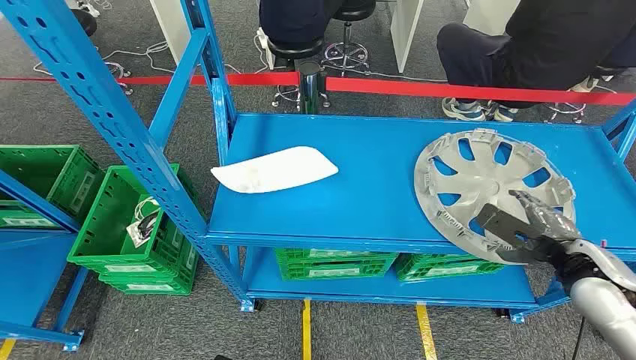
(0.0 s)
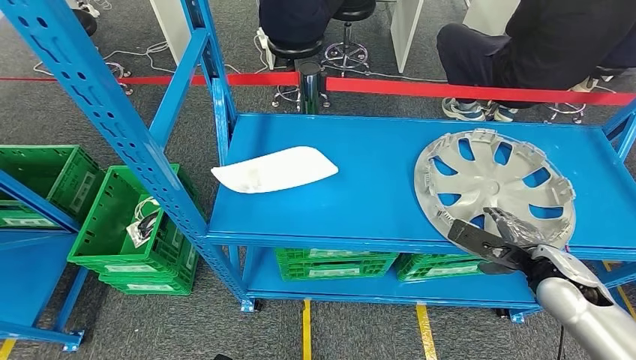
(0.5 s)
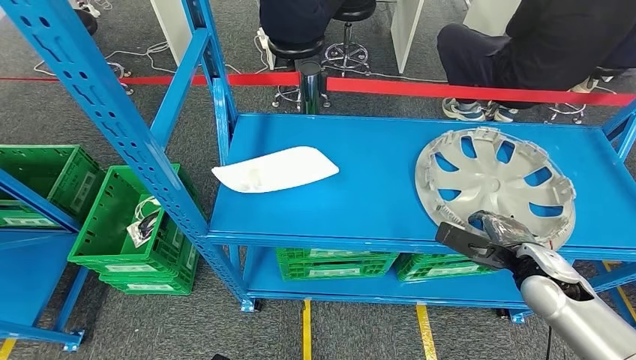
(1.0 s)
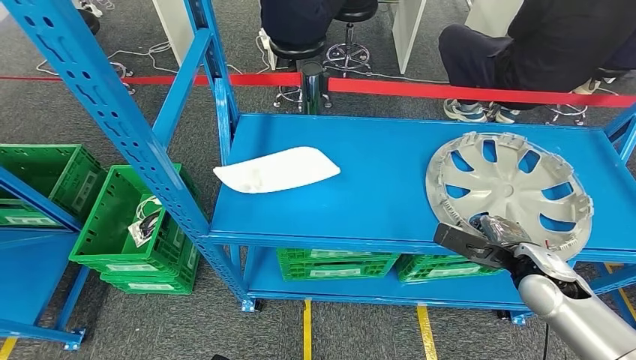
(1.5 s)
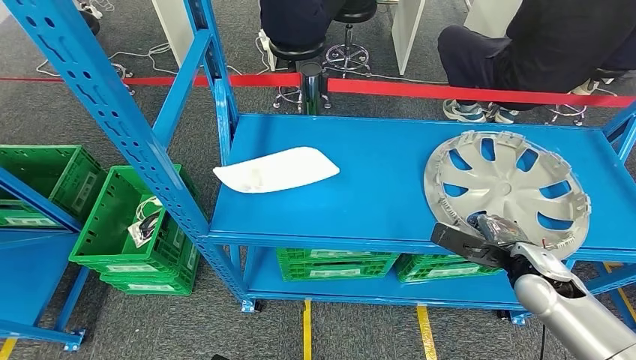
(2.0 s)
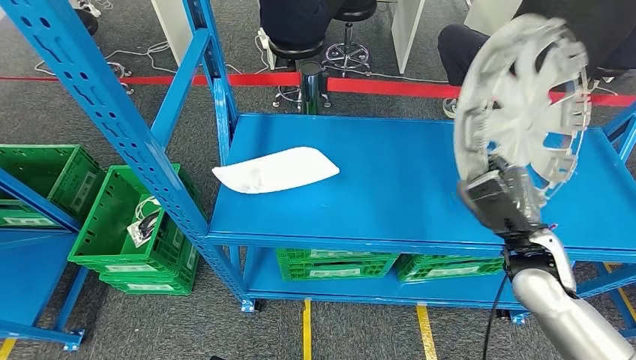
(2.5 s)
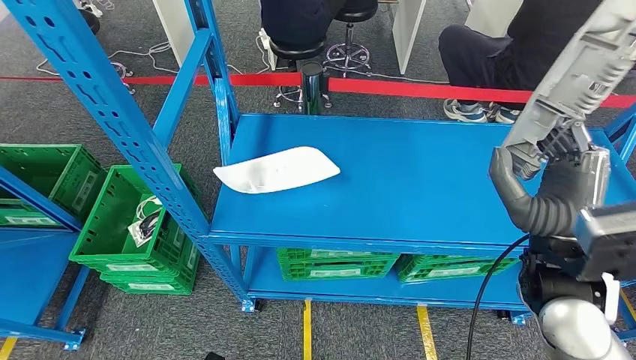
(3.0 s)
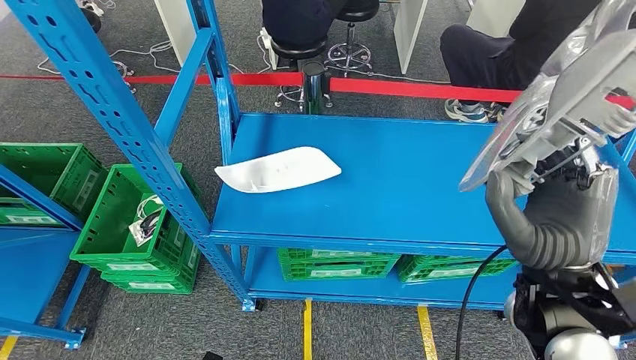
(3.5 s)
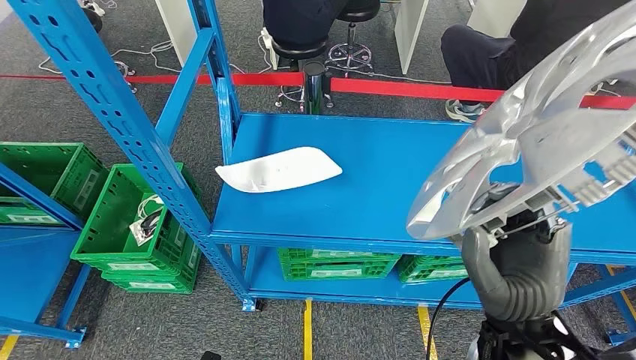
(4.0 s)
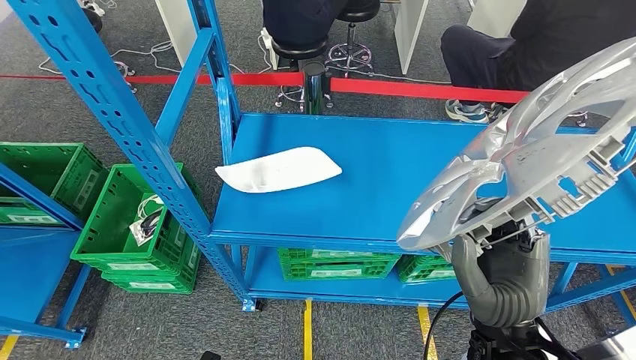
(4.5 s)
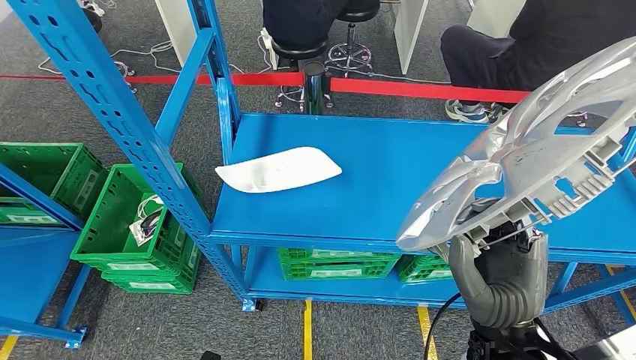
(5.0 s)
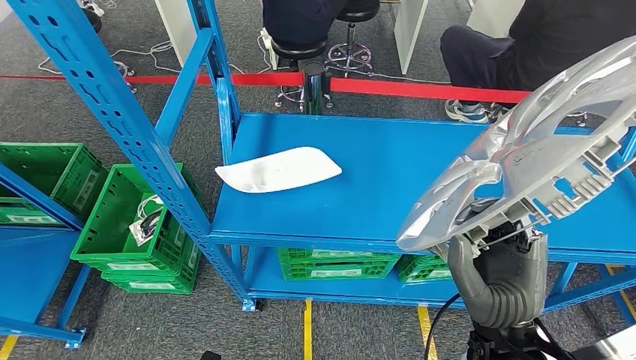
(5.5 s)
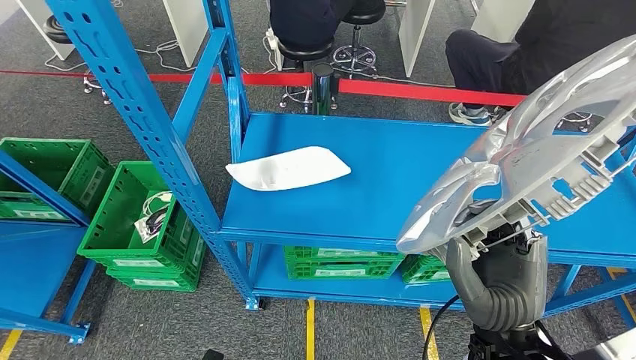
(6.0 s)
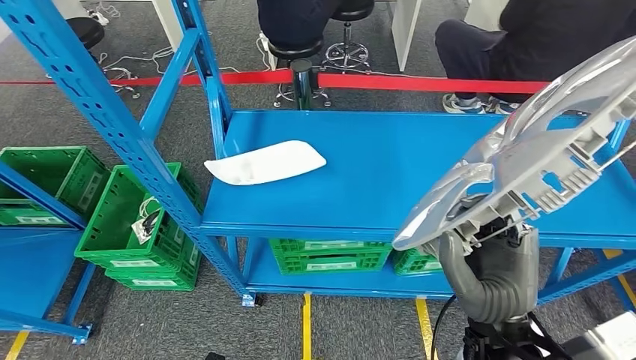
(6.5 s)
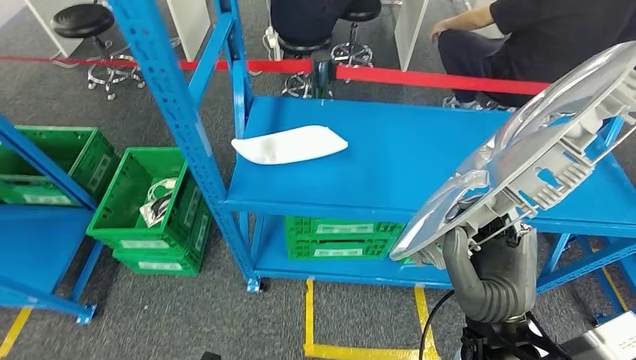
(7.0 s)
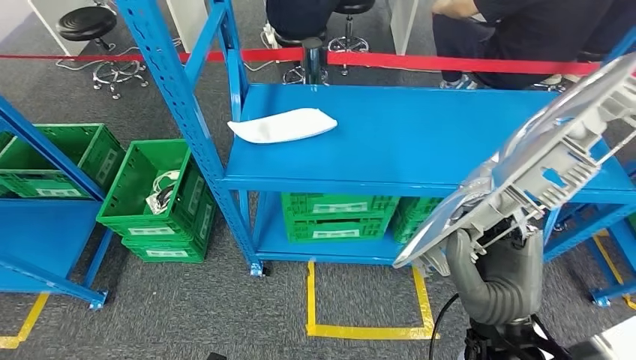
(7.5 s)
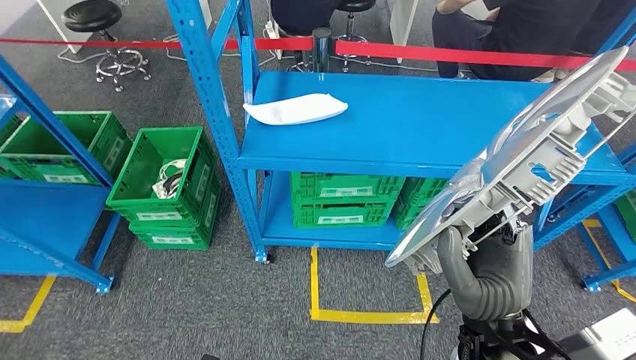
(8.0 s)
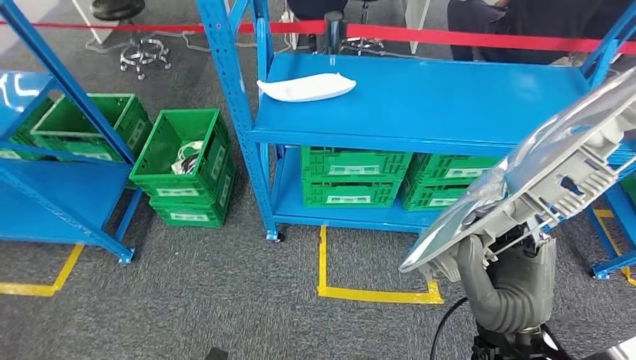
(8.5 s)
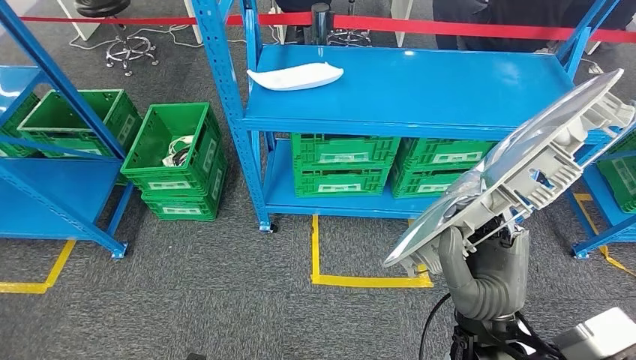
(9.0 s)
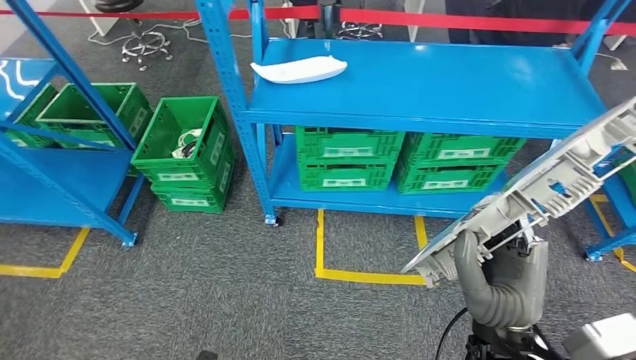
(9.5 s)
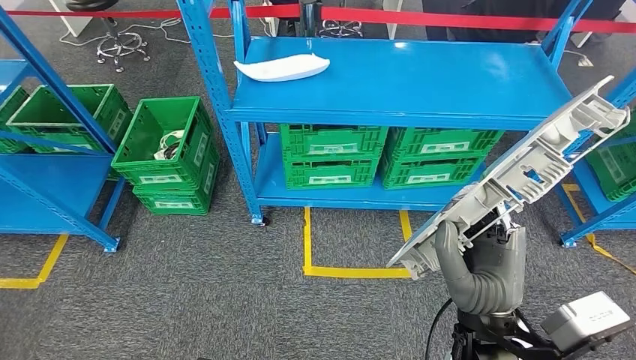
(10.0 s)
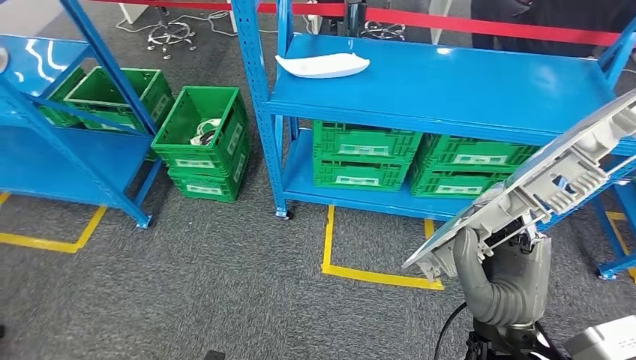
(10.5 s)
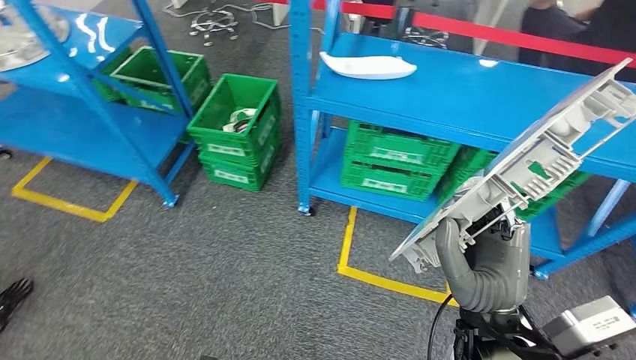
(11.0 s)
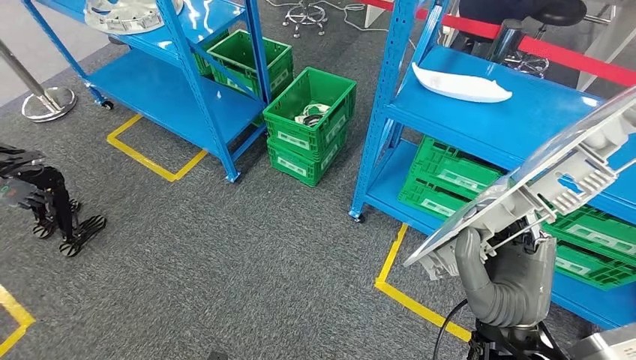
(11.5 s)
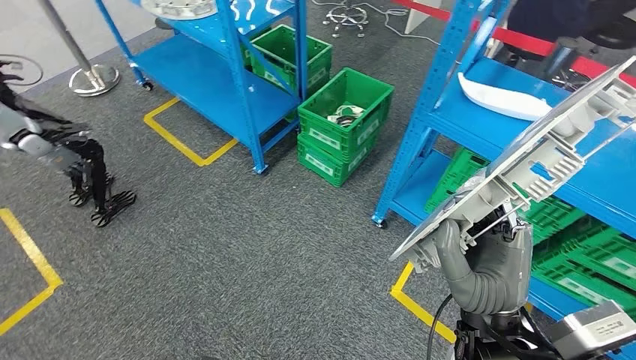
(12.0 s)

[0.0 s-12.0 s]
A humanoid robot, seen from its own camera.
Step, 0.0 to 4.0 s: Pick up the small component from the shelf.

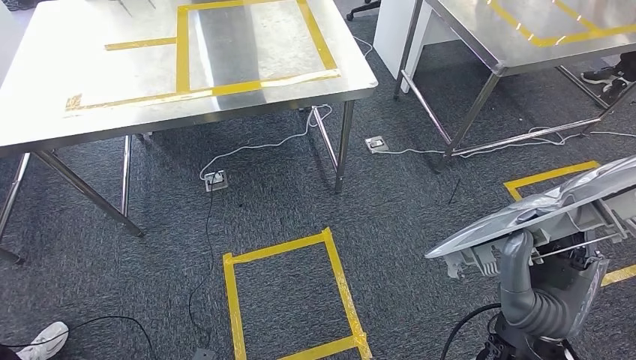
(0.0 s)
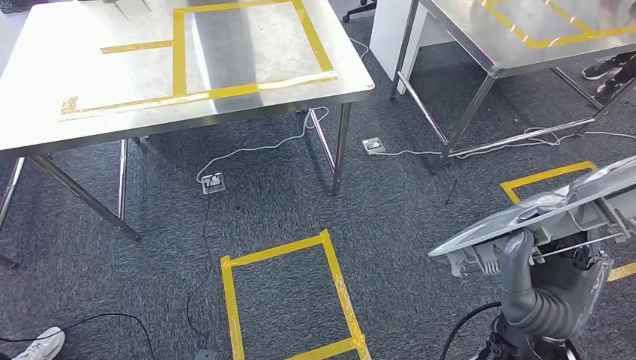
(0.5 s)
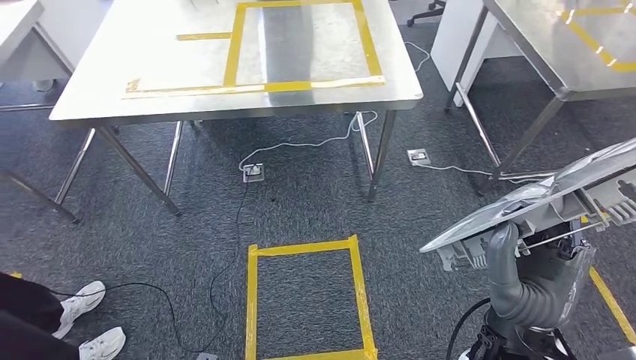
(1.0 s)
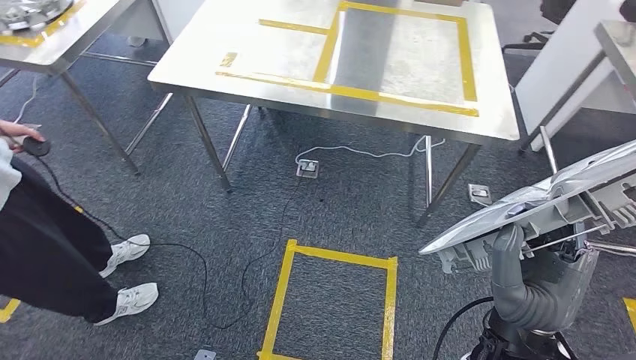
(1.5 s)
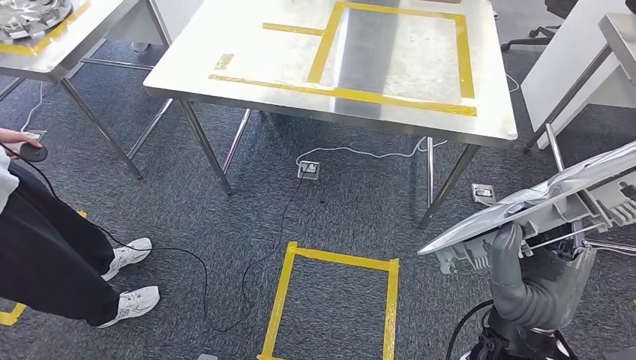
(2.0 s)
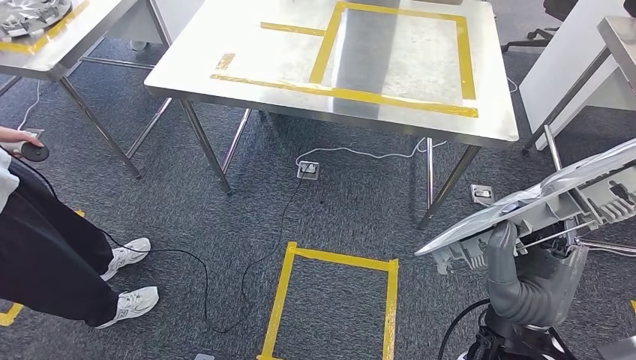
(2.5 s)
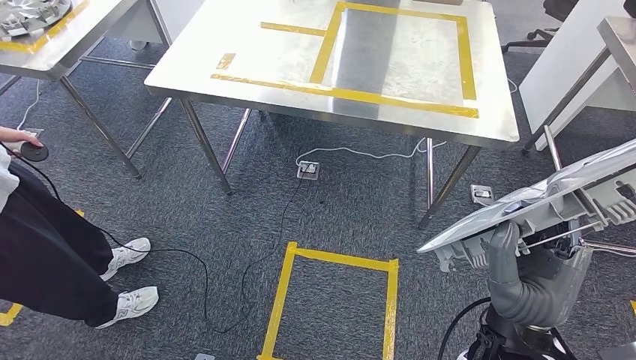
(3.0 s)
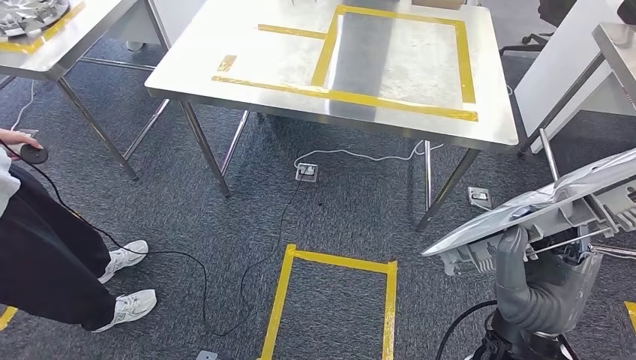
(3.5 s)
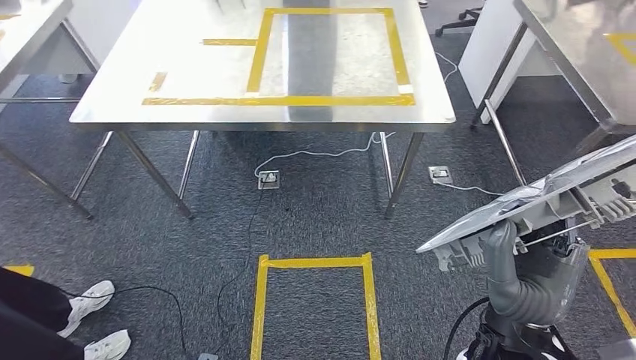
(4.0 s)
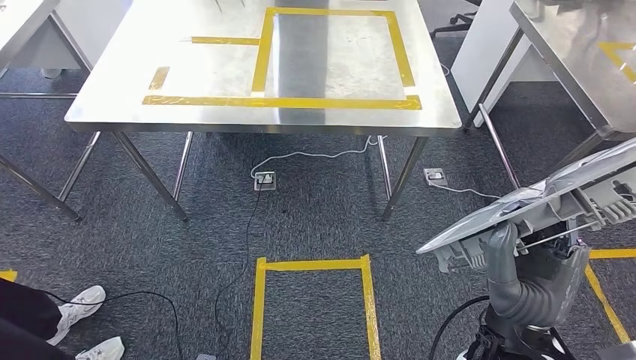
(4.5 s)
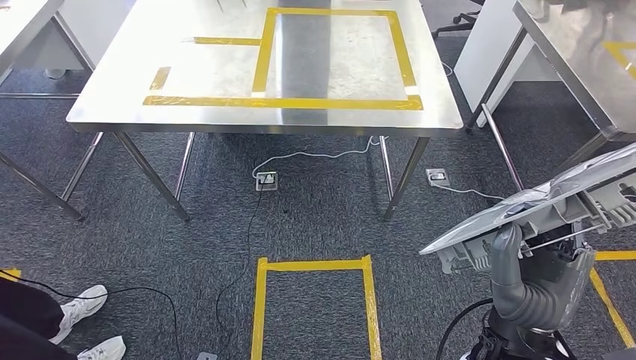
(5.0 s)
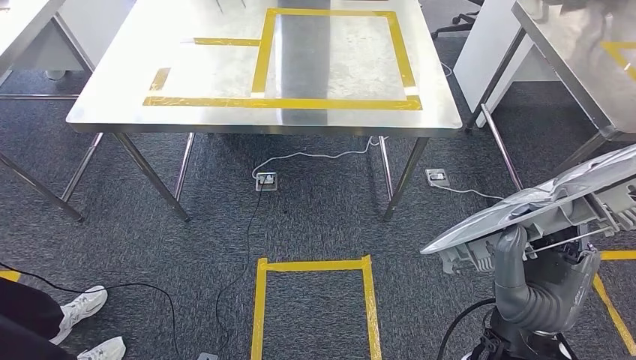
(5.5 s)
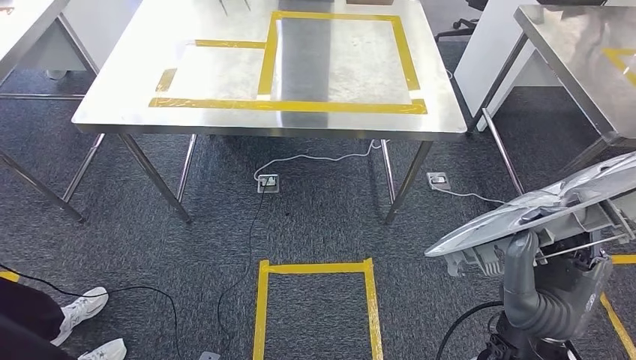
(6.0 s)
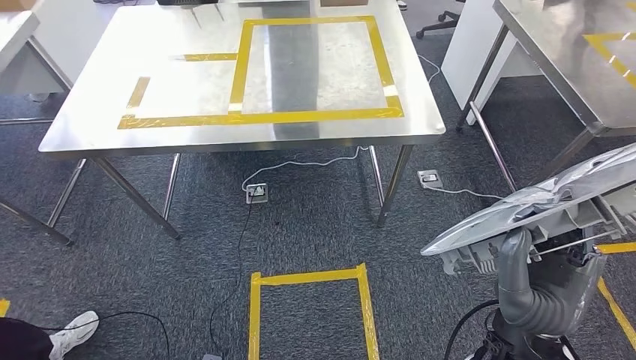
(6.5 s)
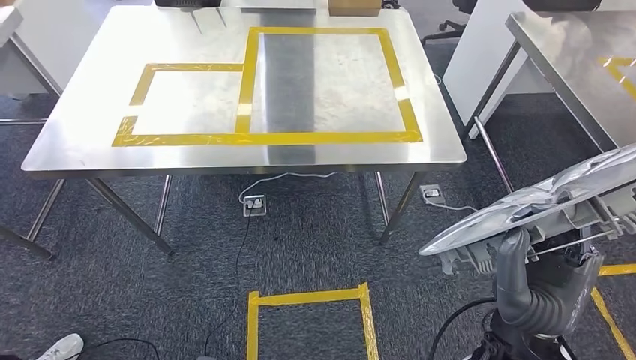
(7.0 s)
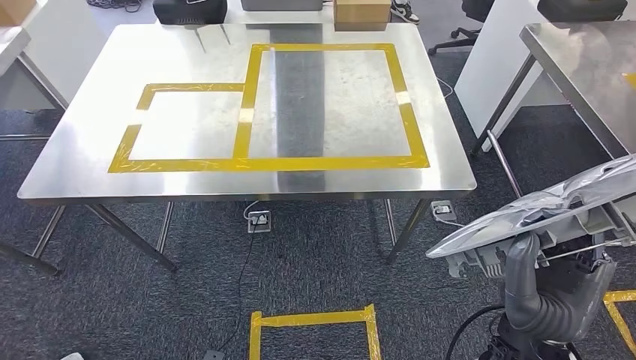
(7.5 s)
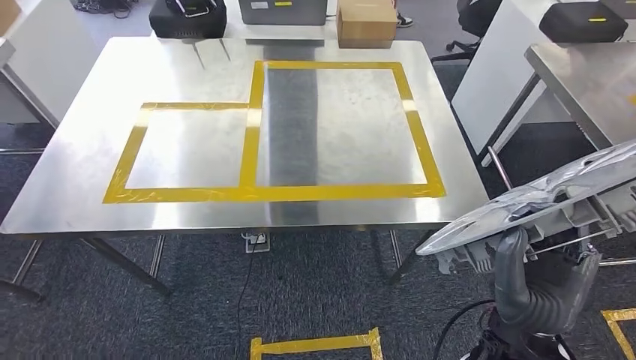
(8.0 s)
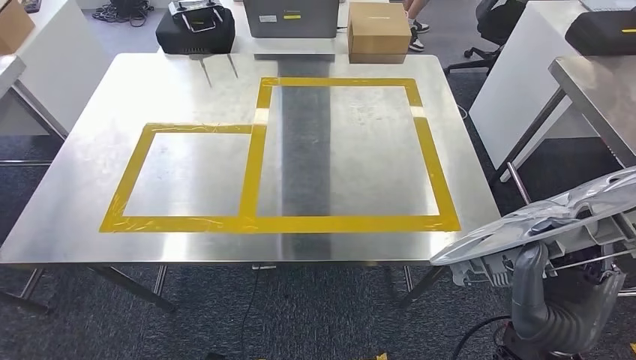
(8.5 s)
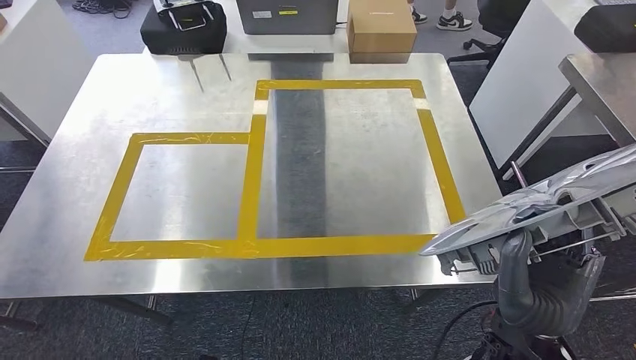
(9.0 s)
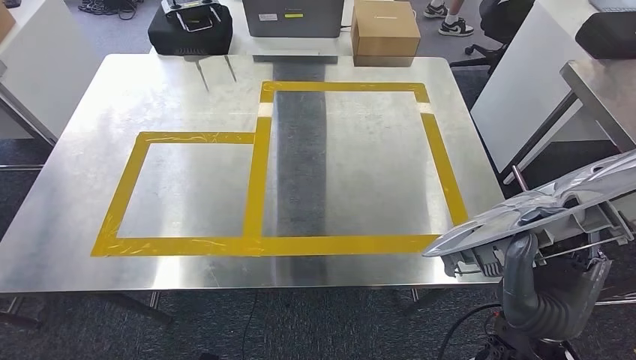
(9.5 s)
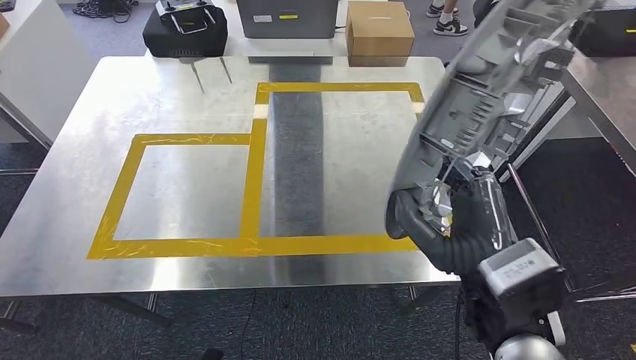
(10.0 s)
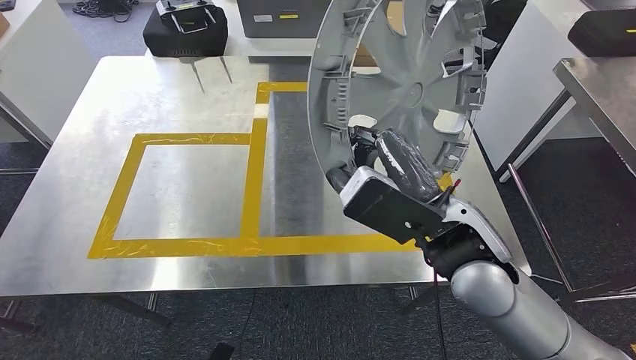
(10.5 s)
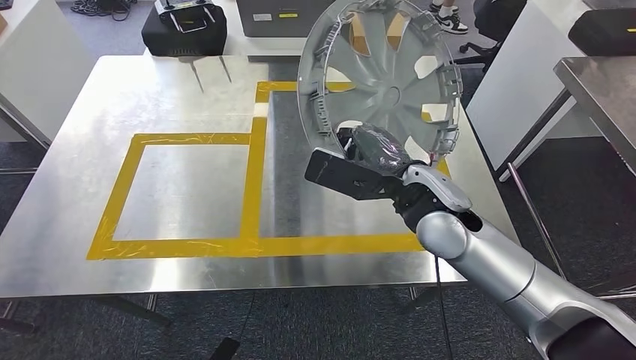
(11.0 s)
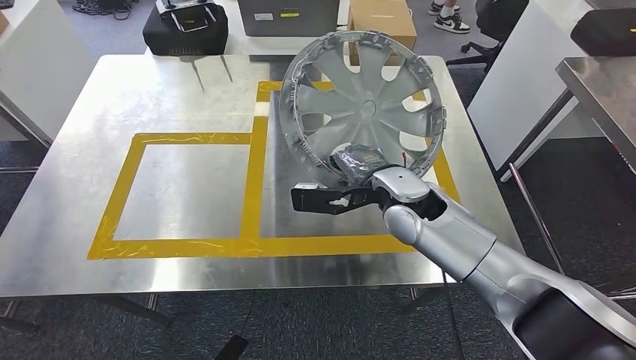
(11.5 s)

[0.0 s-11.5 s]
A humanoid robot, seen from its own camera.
Step, 0.0 to 2.0 s: Bring the small component to the front of the workbench.
